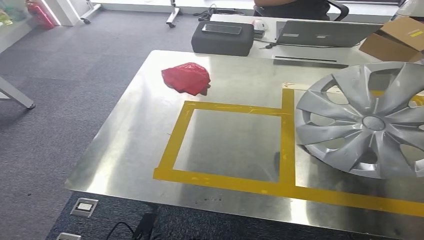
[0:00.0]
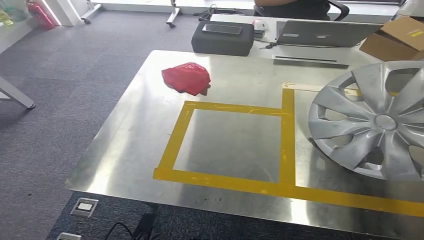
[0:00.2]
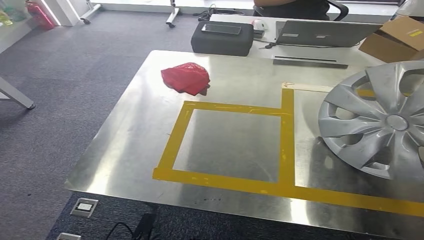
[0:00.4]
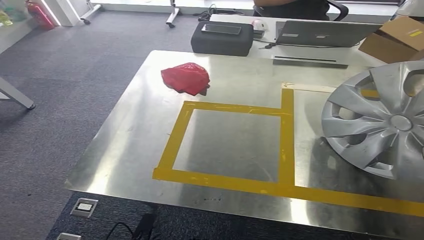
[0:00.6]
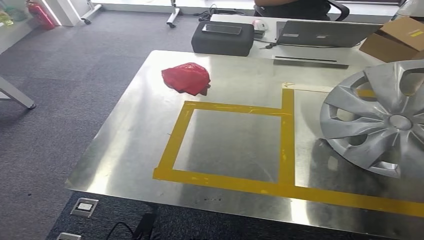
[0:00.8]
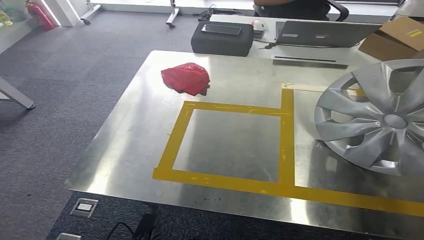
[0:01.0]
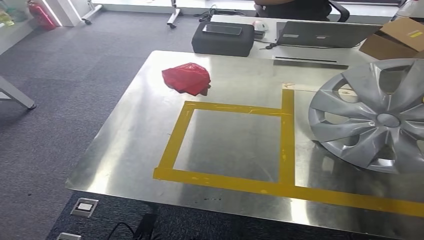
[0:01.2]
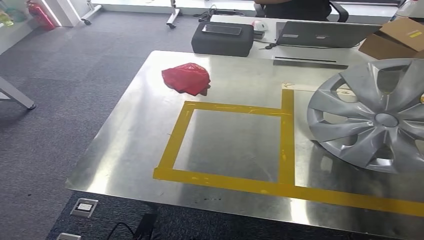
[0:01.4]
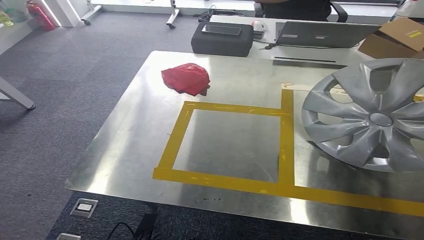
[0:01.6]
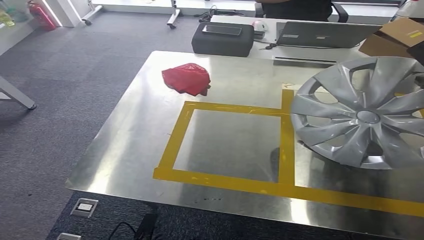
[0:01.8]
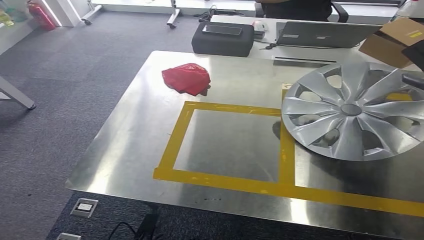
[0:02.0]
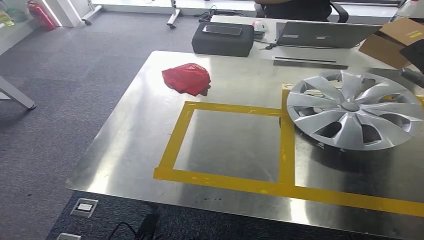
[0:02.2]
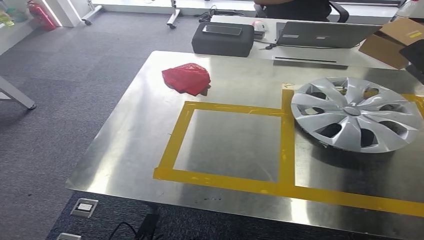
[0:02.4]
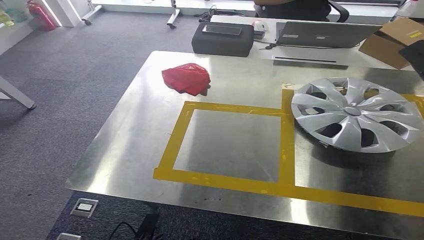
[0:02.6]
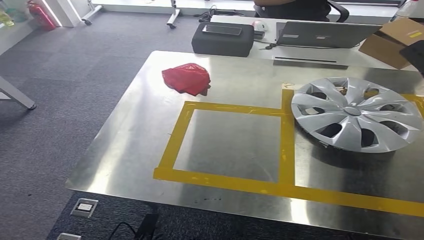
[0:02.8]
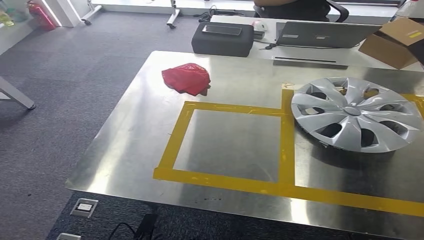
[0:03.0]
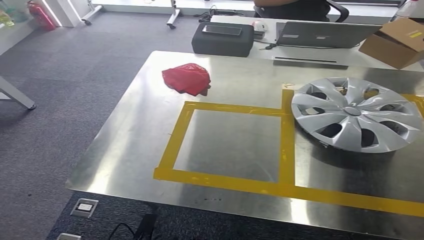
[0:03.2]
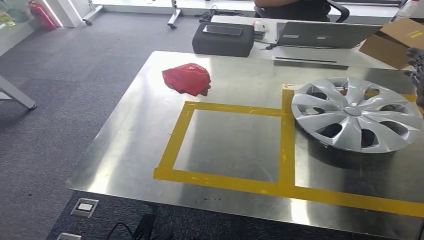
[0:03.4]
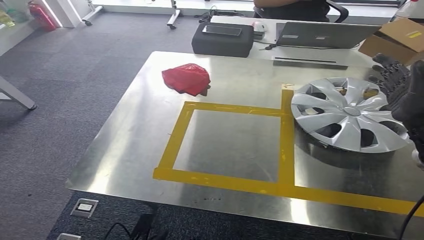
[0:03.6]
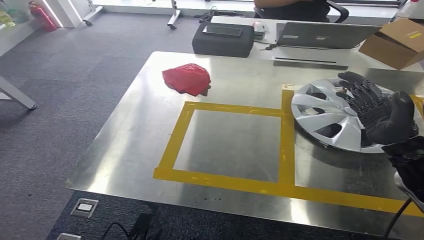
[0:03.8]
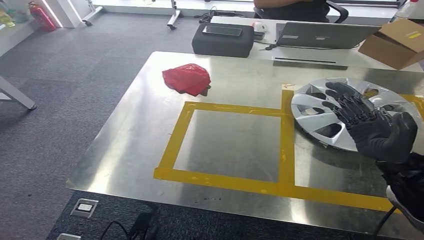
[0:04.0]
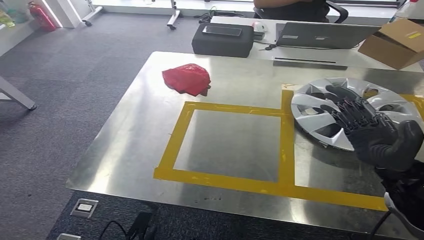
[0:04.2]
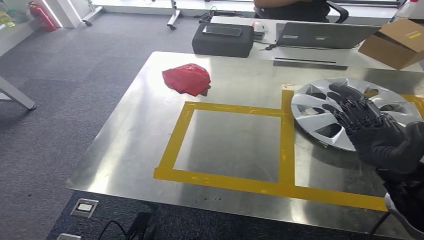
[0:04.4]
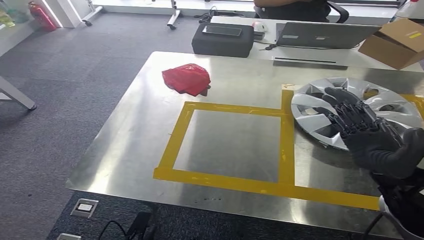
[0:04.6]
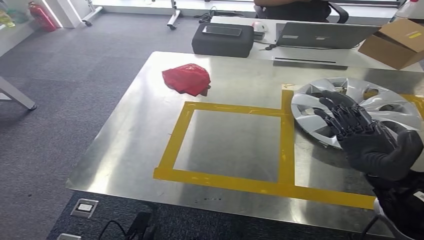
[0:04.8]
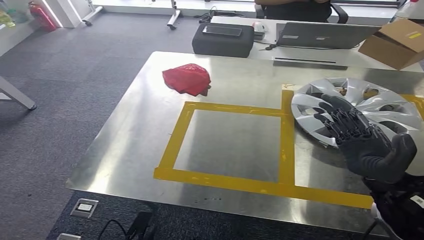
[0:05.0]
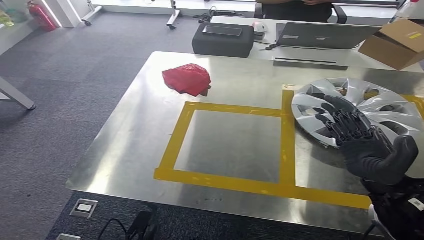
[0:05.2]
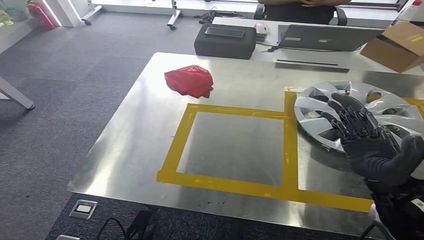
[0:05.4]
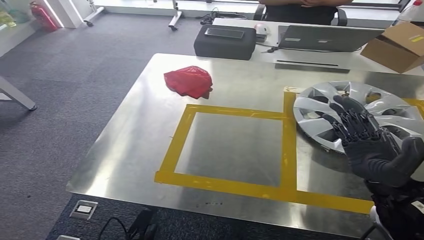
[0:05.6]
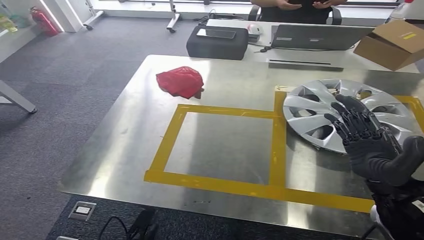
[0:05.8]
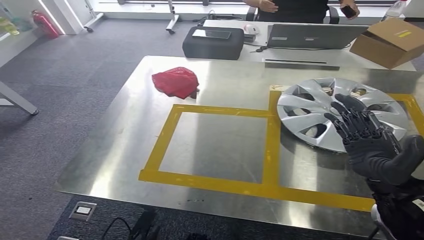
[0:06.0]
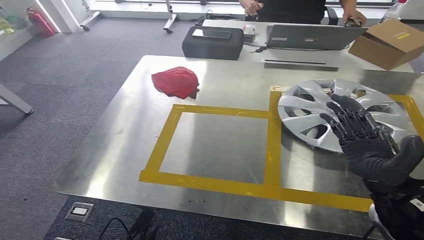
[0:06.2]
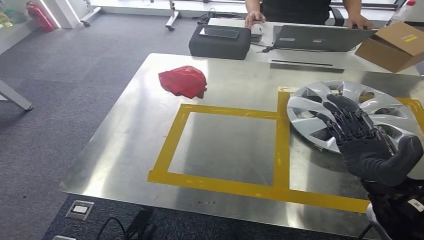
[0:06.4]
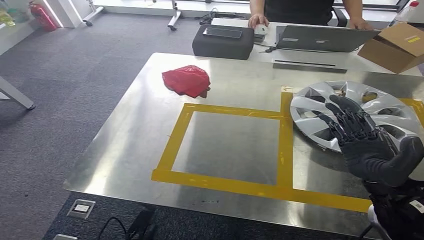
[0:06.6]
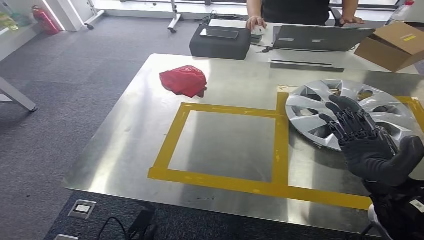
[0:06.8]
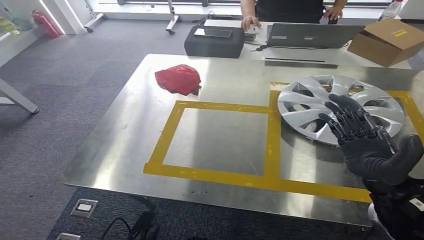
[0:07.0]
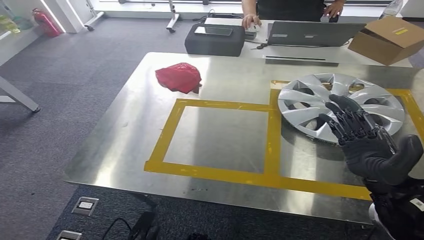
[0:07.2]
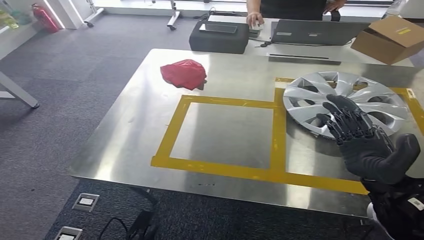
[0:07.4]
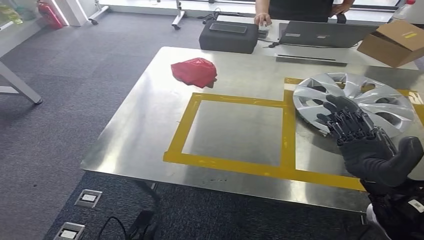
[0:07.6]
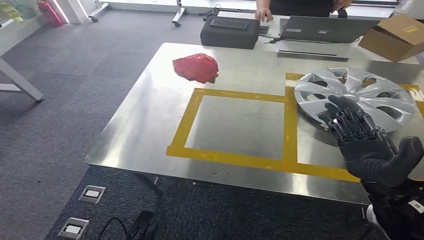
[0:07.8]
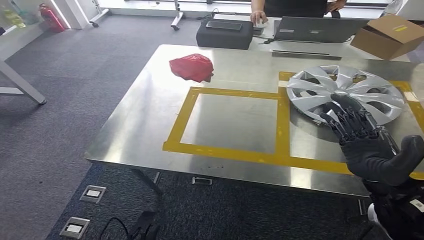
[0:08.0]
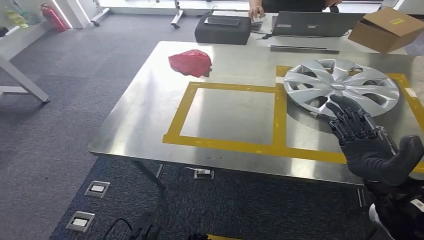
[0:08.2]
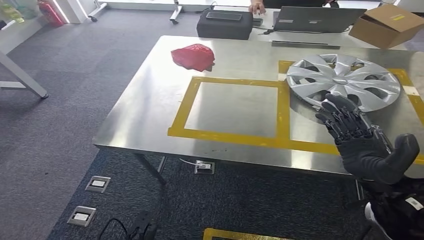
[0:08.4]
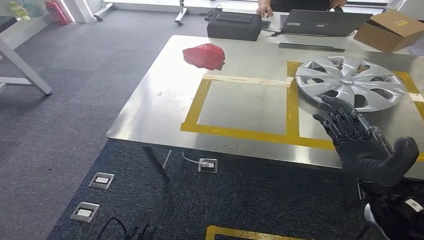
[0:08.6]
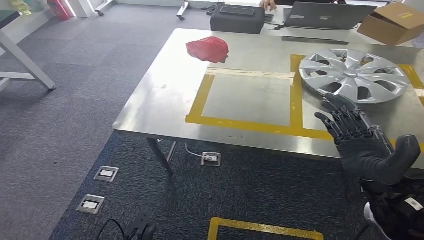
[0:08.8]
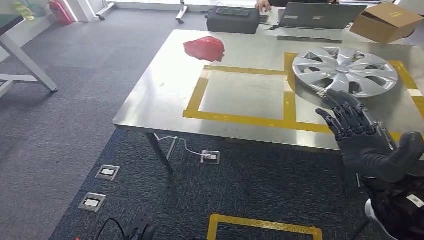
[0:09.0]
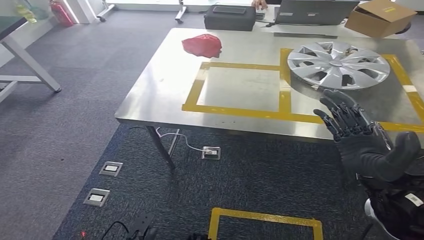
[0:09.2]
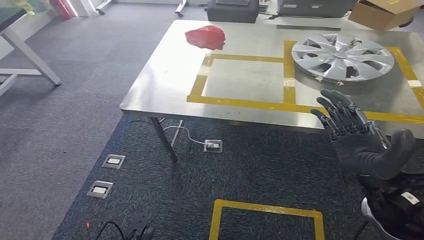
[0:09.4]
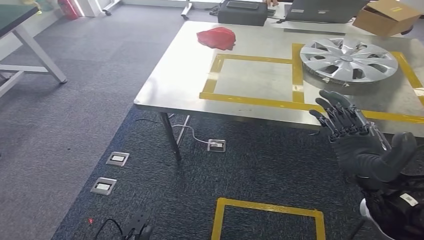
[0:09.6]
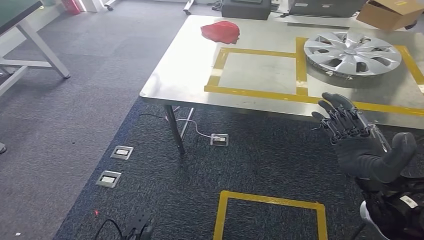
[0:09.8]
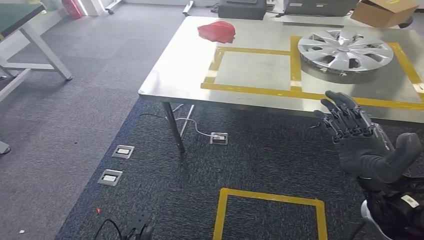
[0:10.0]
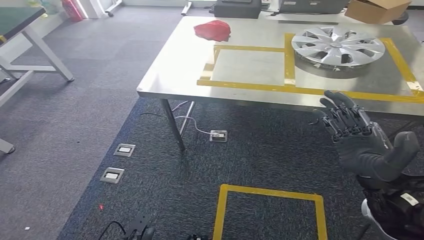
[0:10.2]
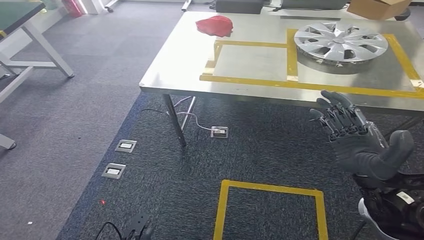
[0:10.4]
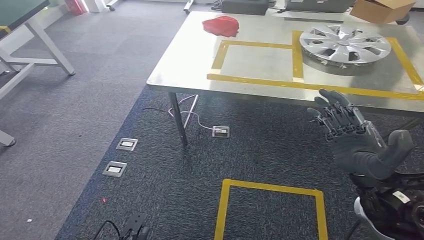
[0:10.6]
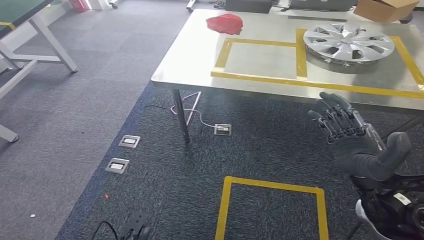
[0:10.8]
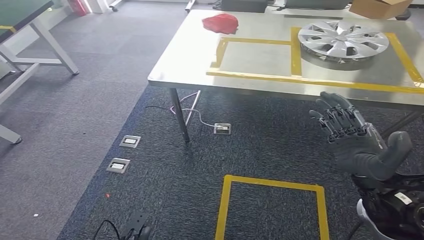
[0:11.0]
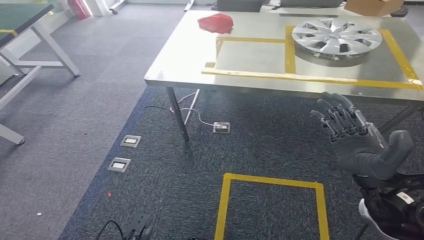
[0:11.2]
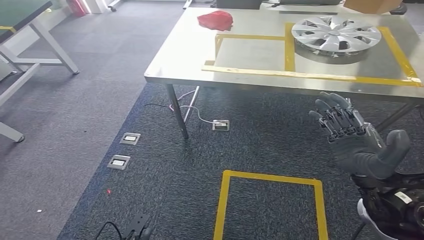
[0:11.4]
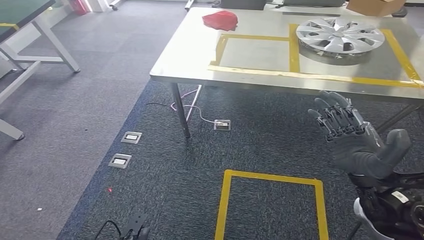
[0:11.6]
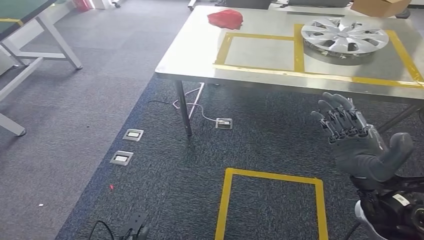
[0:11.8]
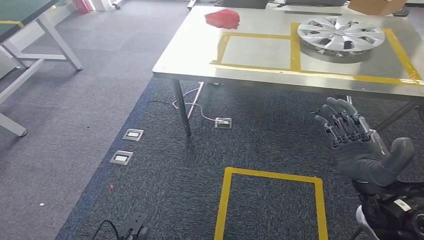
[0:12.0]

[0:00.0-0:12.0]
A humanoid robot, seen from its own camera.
Step, 0:01.4 to 0:06.0: Insert the small parts into the corresponding holes on the workbench.
0:00.0 to 0:03.0: There are only small adjustments of the hands.
0:03.0 to 0:04.4: The right hand travels backward, to the left and downward by some 20 cm.

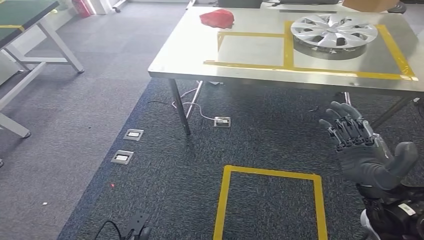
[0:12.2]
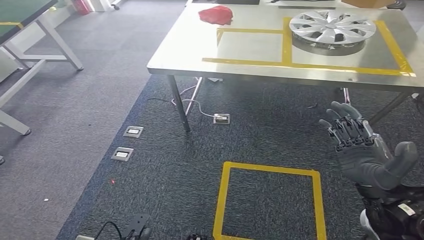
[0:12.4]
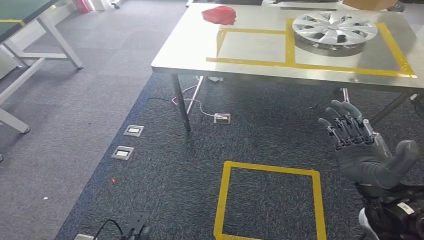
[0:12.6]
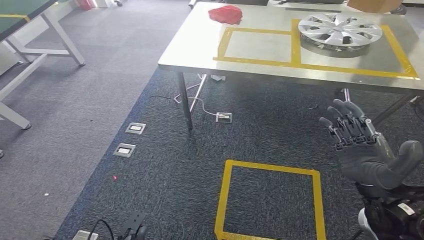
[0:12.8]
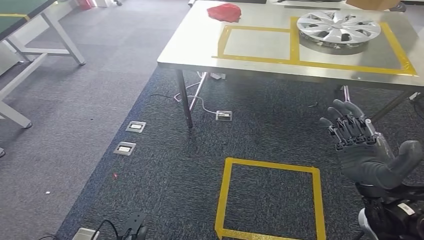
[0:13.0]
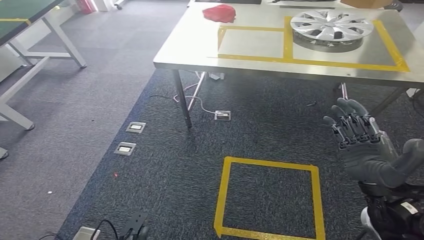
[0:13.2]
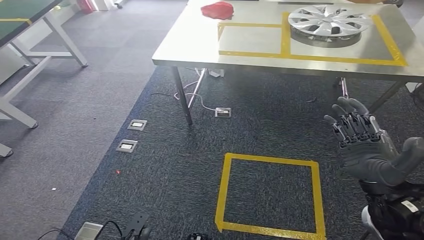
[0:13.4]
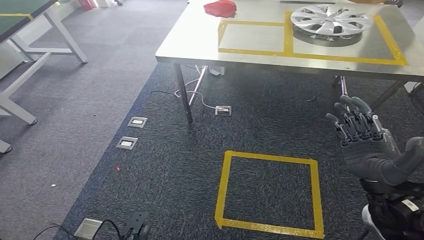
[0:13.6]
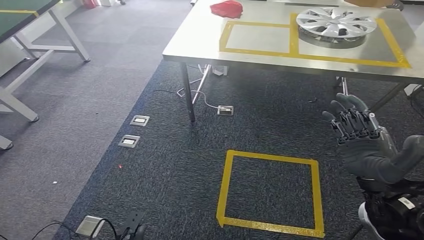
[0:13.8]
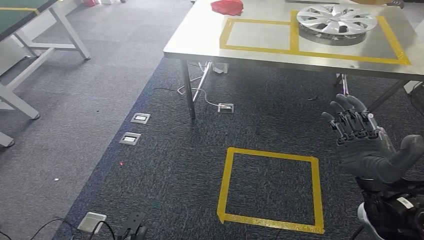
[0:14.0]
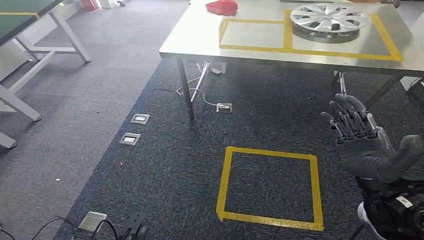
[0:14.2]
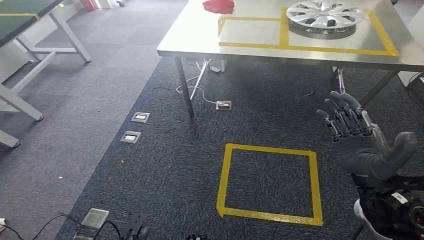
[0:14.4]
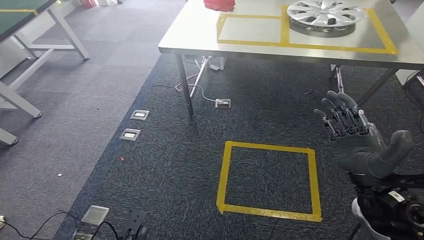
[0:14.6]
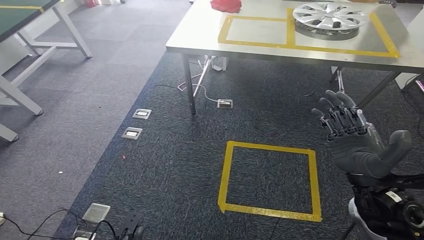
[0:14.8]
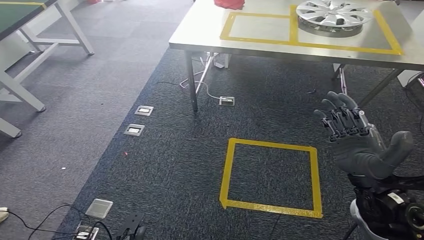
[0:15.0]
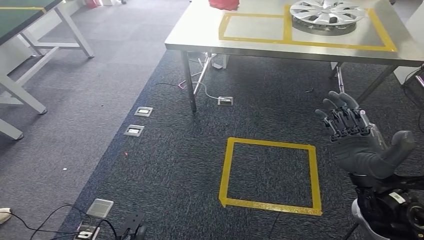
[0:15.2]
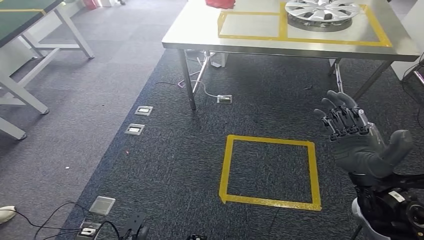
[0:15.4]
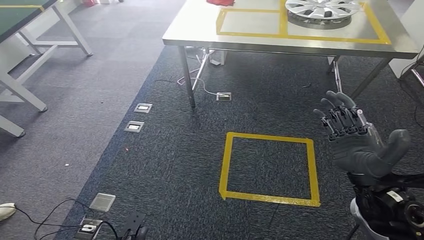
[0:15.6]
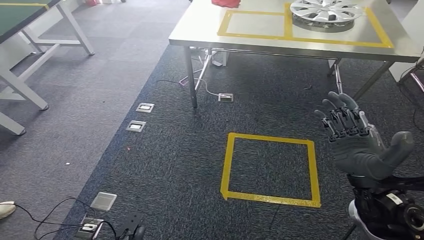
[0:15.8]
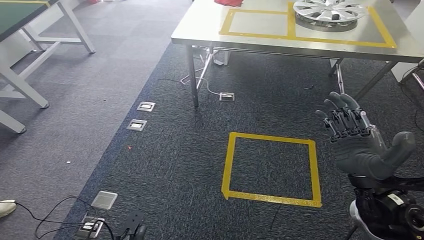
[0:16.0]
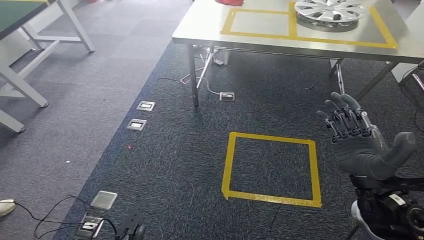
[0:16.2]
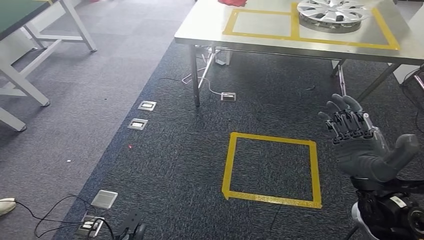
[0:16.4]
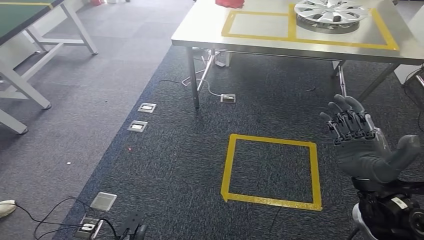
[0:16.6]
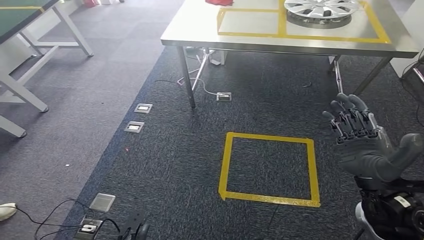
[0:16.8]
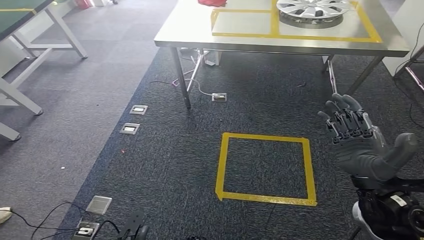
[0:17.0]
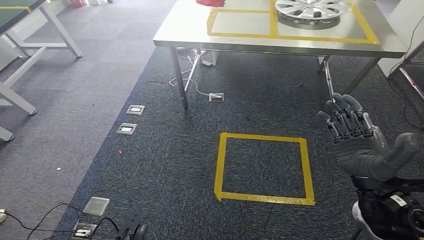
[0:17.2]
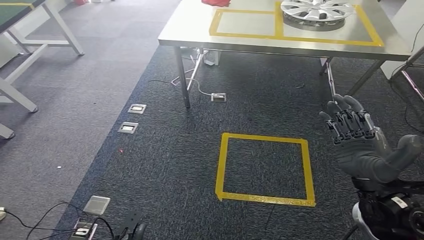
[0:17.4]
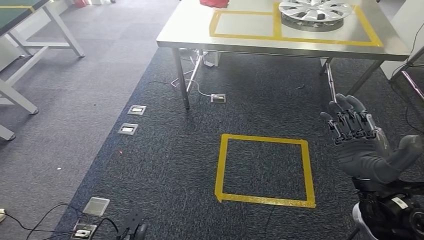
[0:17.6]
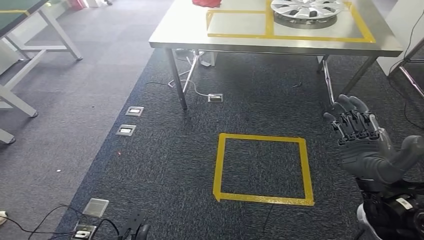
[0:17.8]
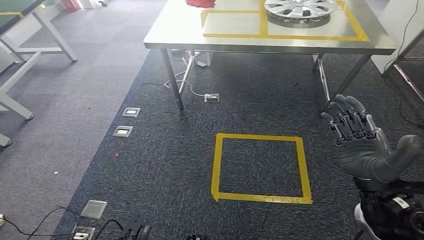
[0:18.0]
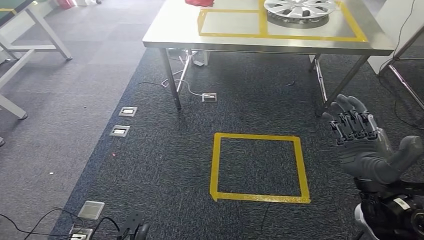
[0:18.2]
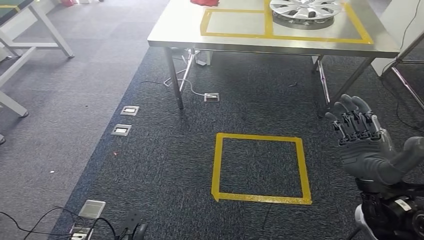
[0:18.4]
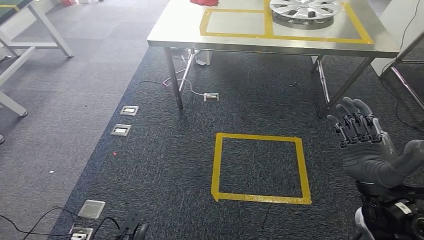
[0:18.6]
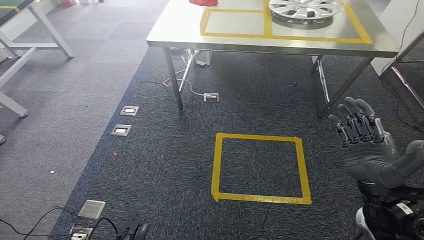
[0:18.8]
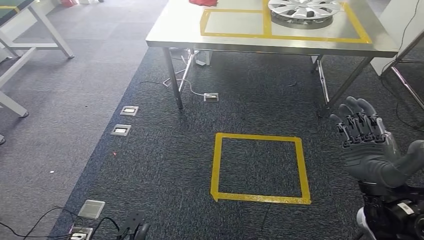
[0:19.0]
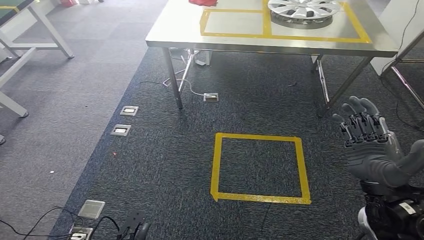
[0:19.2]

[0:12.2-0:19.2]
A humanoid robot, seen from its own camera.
0:15.0 to 0:16.4: Both hands stay put.
0:17.8 to 0:19.2: The two hands keep their place.
